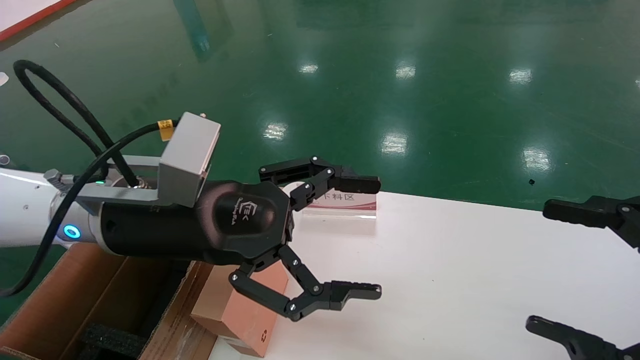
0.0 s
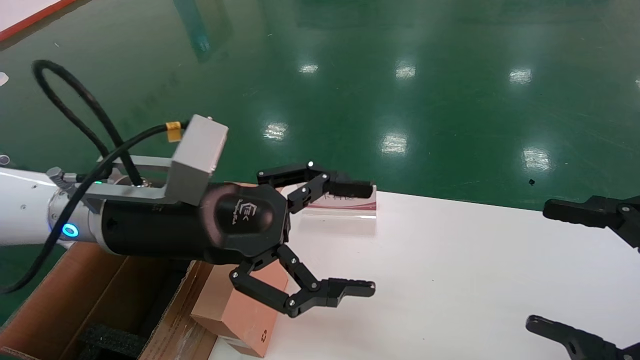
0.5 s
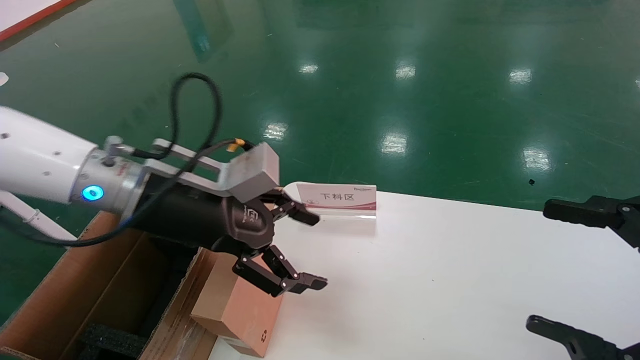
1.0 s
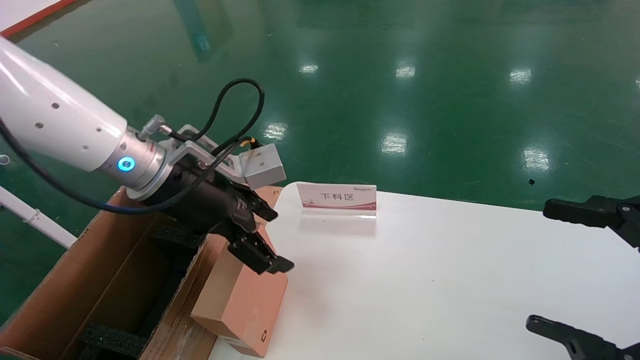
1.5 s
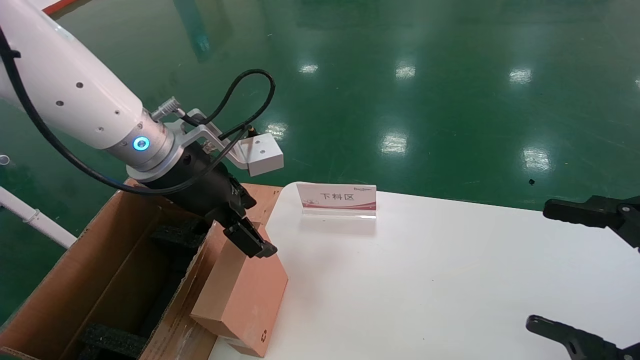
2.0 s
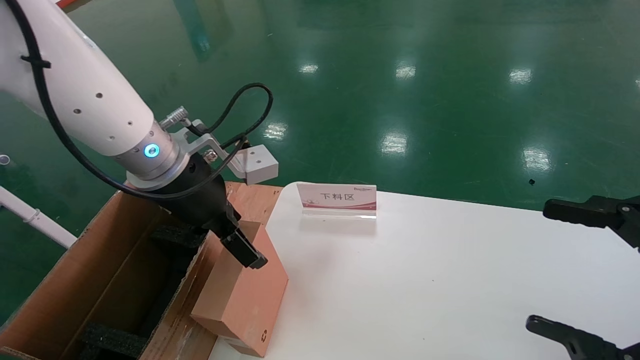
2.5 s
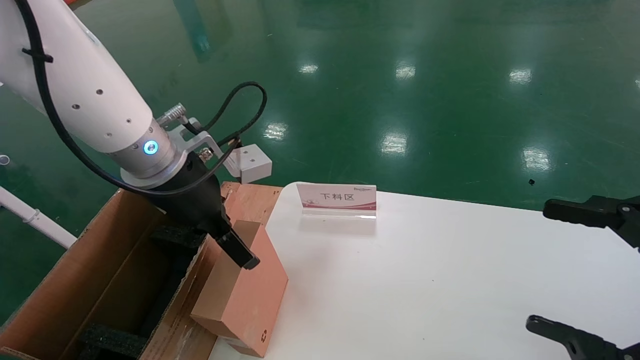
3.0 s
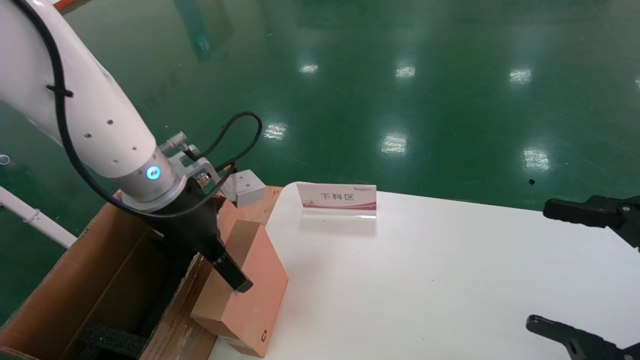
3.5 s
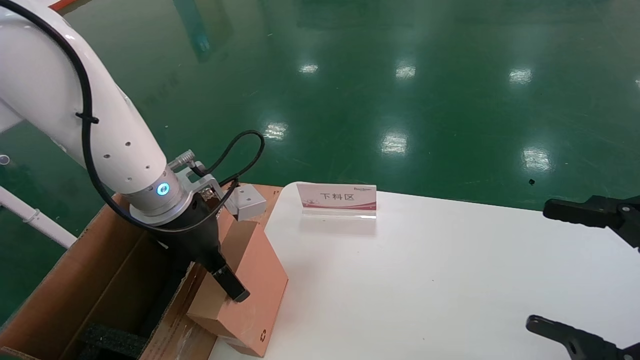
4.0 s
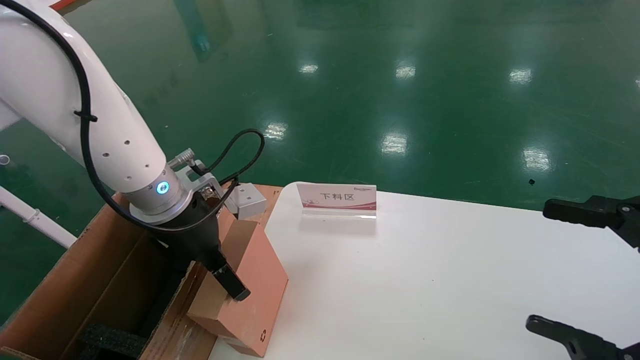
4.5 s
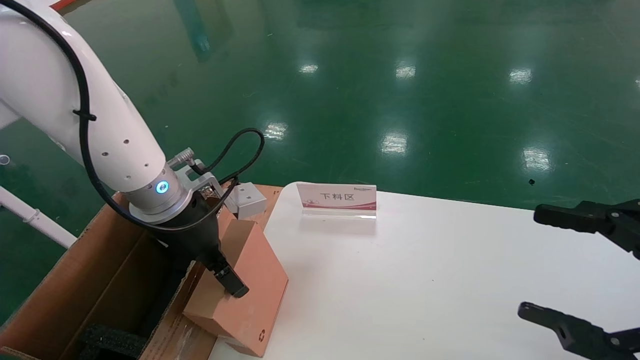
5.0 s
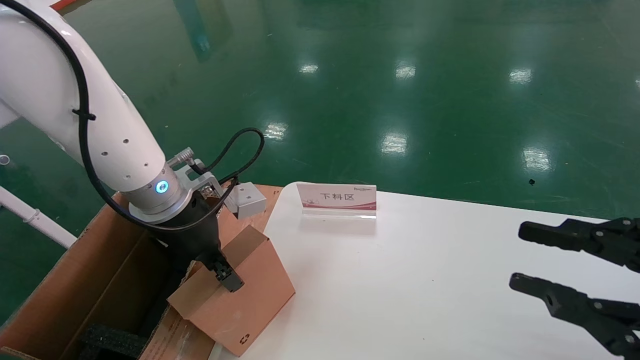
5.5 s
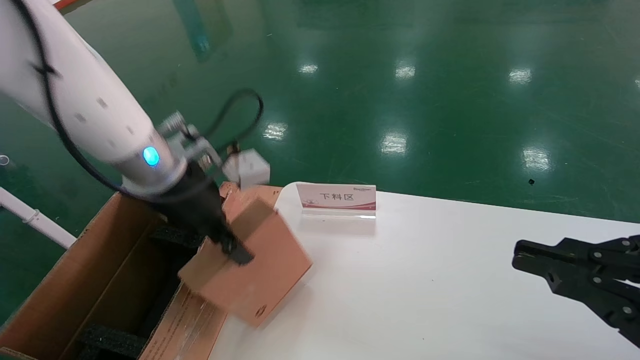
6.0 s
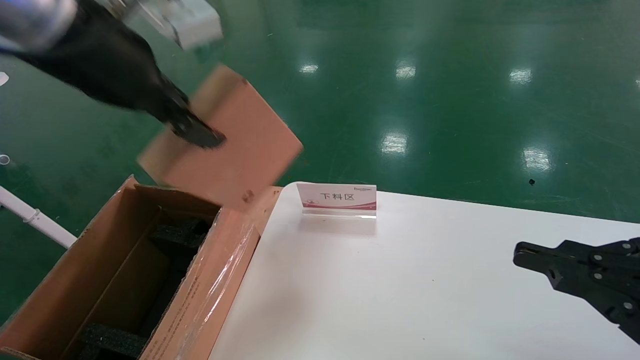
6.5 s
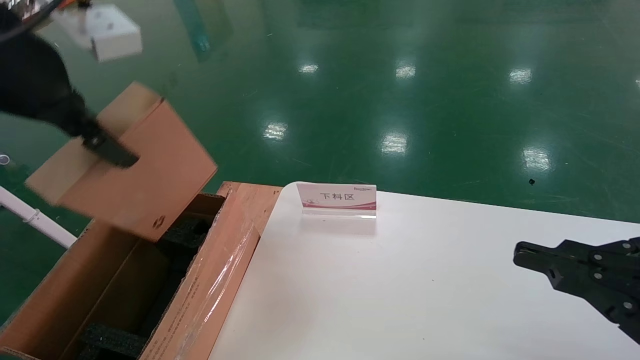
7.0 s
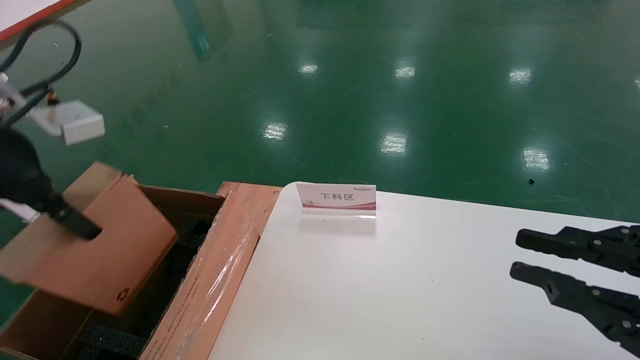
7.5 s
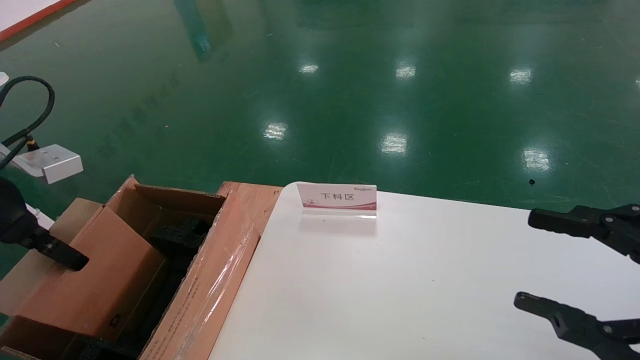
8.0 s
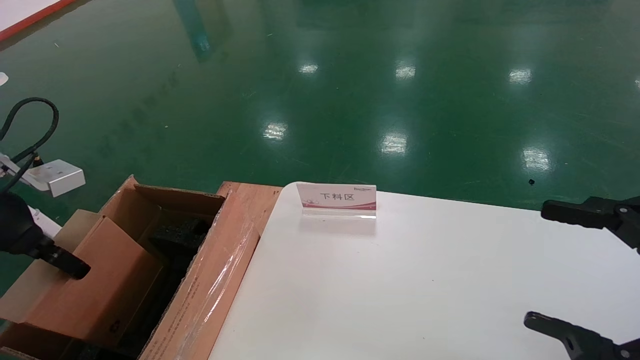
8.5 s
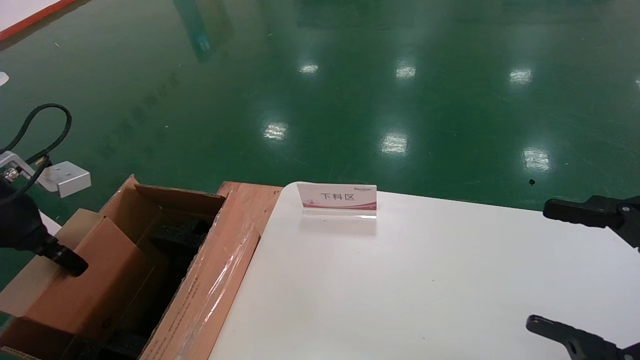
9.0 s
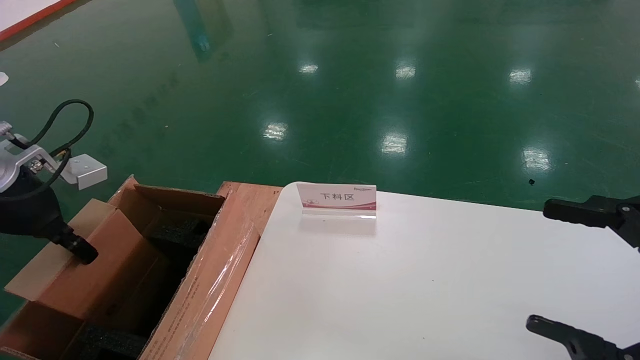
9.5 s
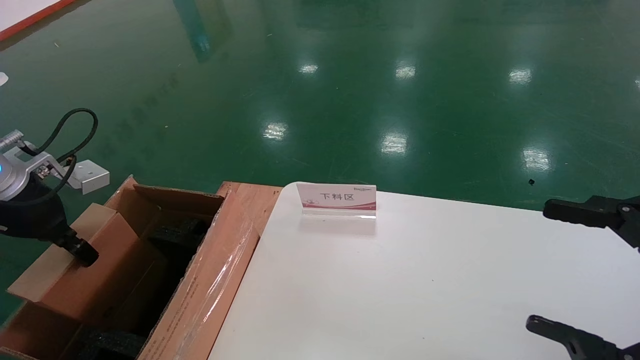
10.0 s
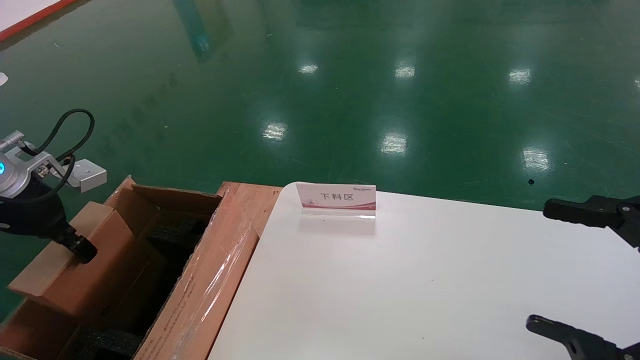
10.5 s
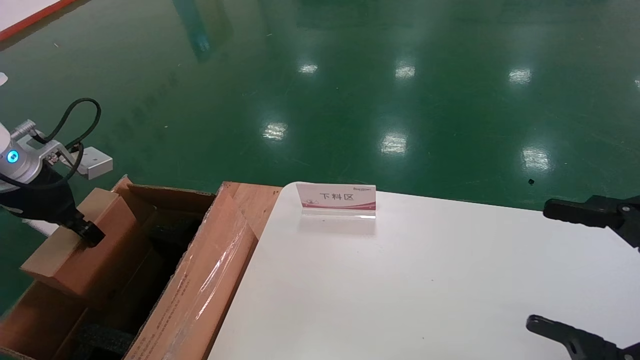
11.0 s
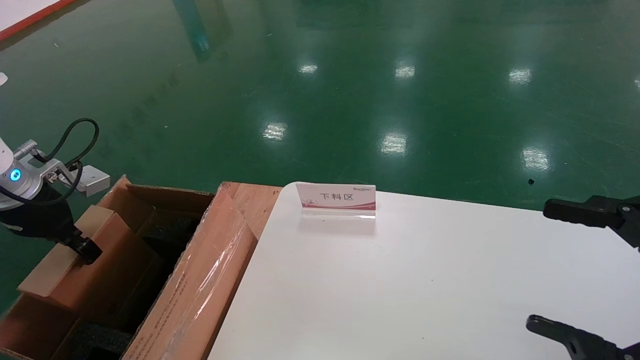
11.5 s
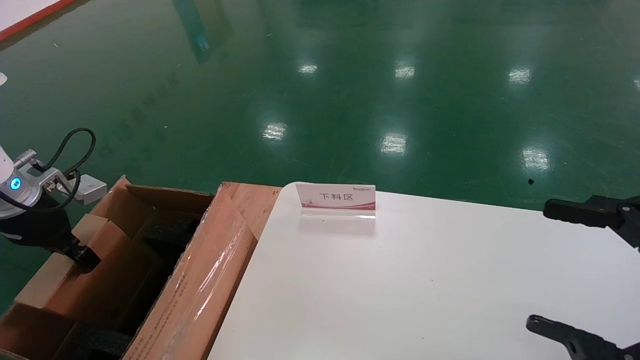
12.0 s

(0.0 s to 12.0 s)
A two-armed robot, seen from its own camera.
Task of the whole recording: pick up the small cardboard box and load it into the large cardboard box.
Step, 1.0 s - 5.0 s: Pick up the mouse and power cord box.
0.0 s - 2.0 s: The left gripper travels forward by about 5 cm.
2.0 s - 4.0 s: The left gripper heads downward, covering about 5 cm.
4.0 s - 6.0 s: The right gripper closes its fingers; the left gripper travels upward by approximately 5 cm, and closes.
6.0 s - 8.0 s: The left gripper is displaced to the left and backward by about 20 cm, while the right gripper opens up.
8.0 s - 10.0 s: The right gripper opens, while the left gripper moves forward, approximately 5 cm.
10.0 s - 12.0 s: The left gripper ends up approximately 5 cm from where it was.

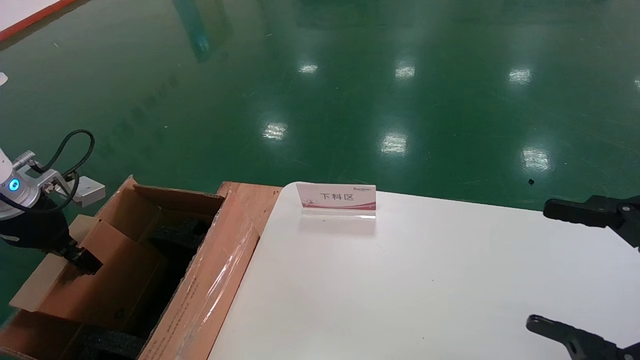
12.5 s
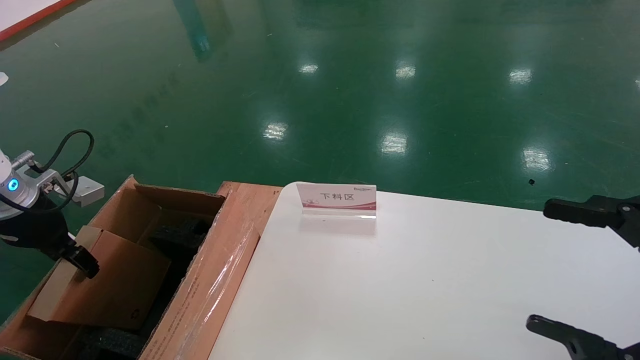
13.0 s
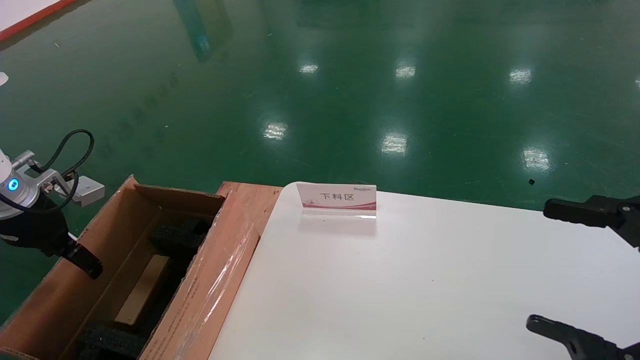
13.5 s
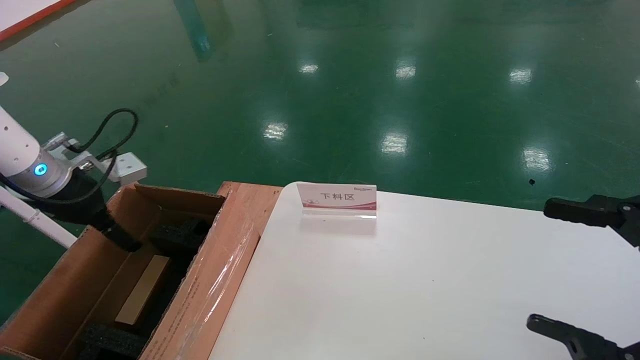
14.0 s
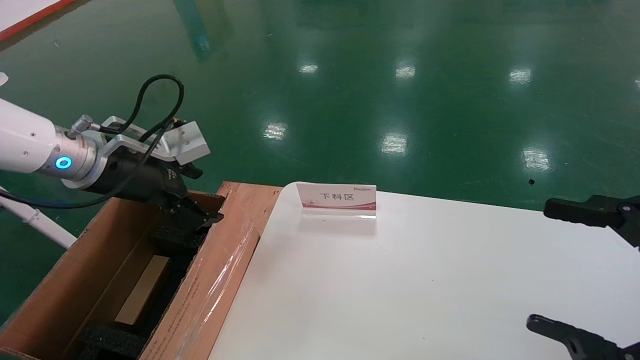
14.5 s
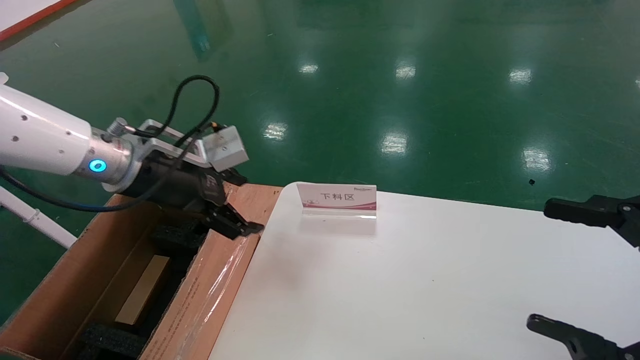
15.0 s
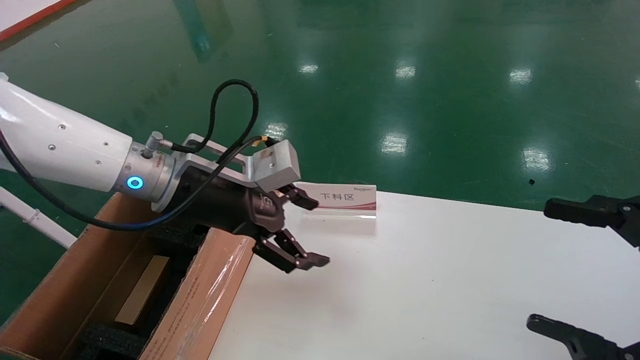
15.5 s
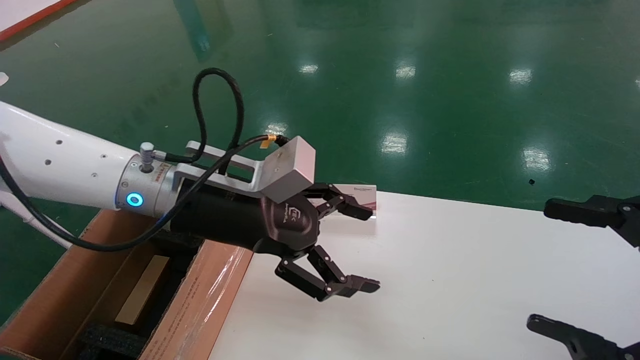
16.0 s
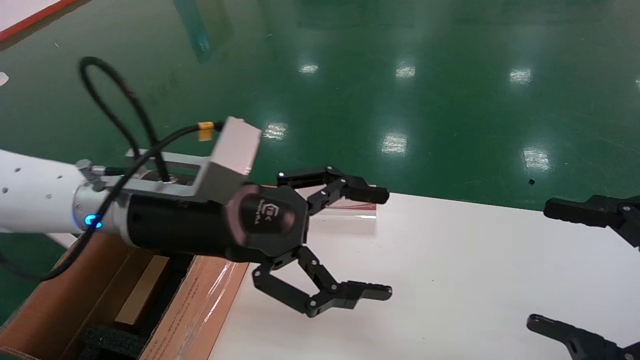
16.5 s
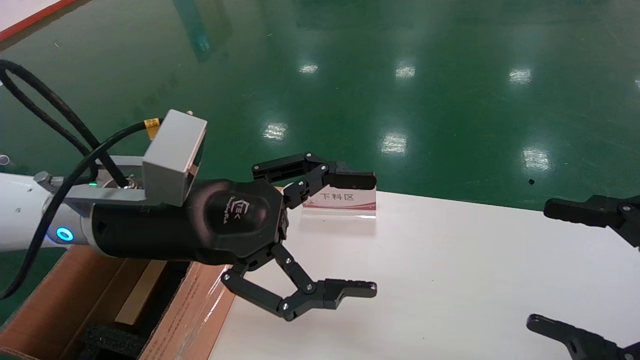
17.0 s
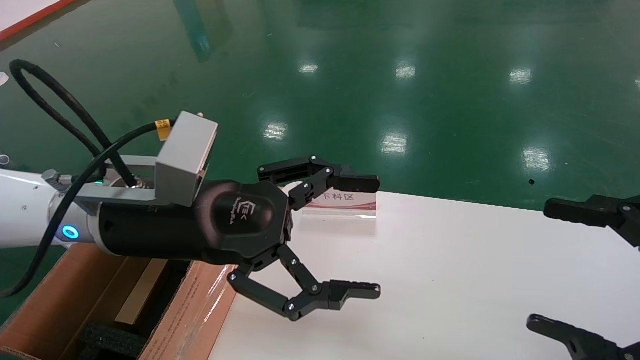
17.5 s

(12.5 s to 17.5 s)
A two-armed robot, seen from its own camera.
Task of the whole recording: pick up the small cardboard box and load it into the large cardboard box.
12.5 s - 15.0 s: The left gripper heads to the right, covering some 20 cm, and opens.
15.0 s - 17.5 s: The left gripper goes approximately 10 cm backward and to the right.
